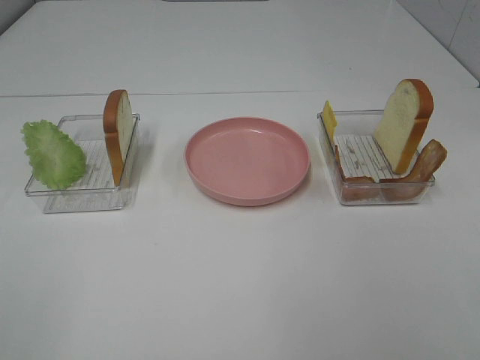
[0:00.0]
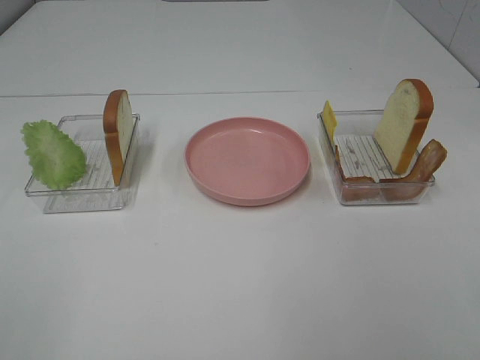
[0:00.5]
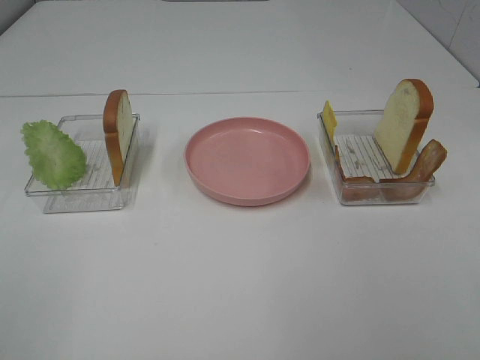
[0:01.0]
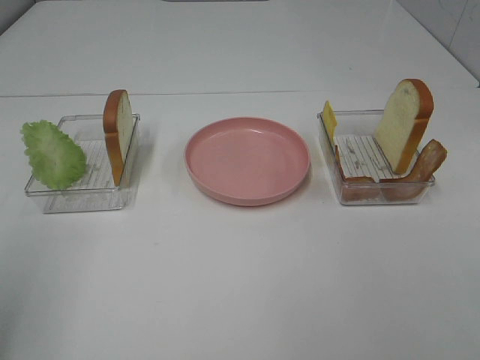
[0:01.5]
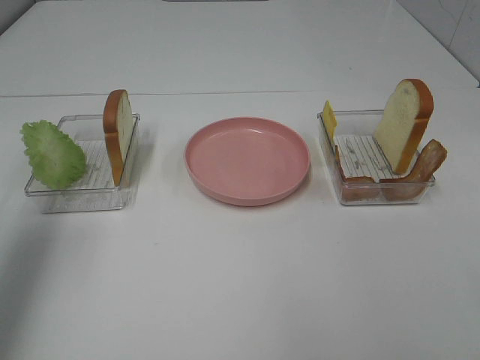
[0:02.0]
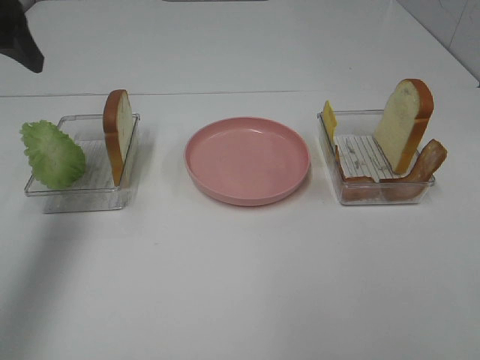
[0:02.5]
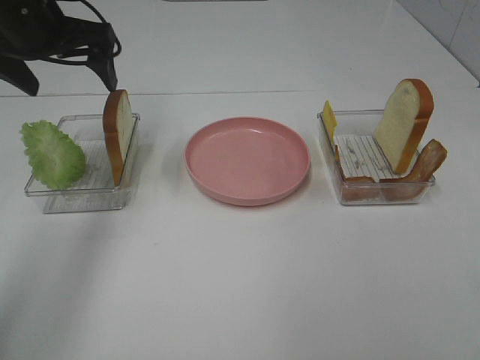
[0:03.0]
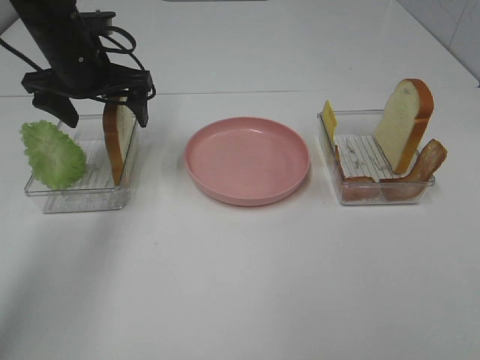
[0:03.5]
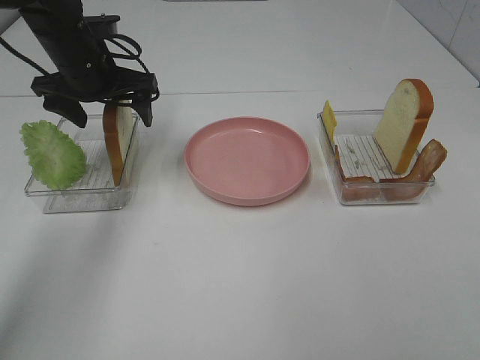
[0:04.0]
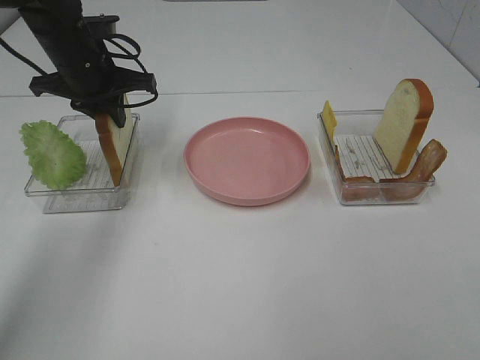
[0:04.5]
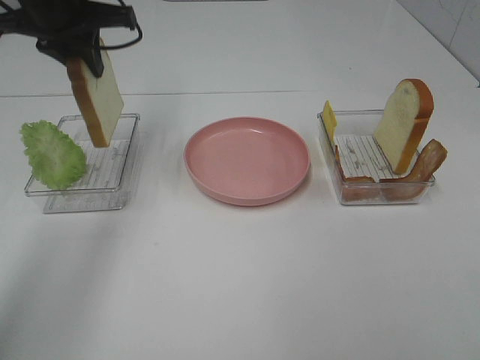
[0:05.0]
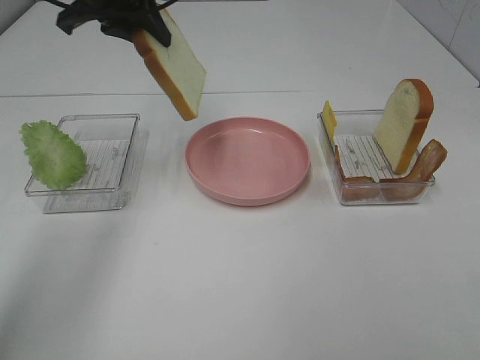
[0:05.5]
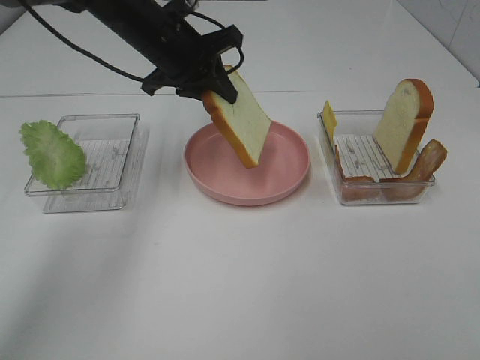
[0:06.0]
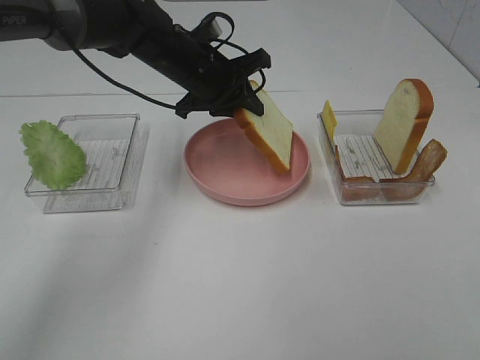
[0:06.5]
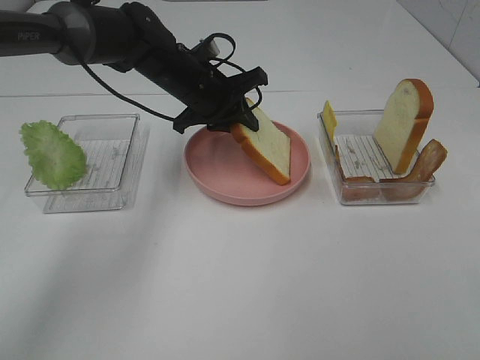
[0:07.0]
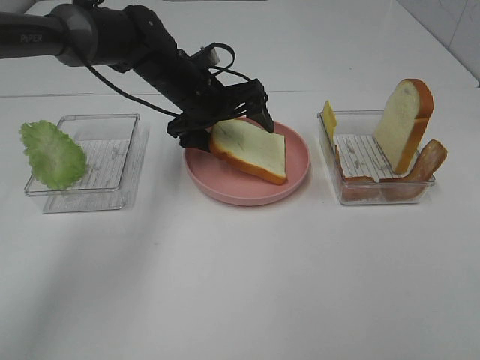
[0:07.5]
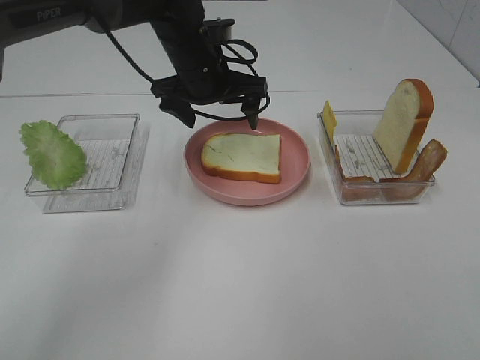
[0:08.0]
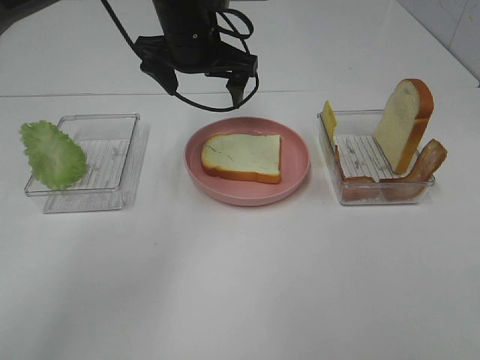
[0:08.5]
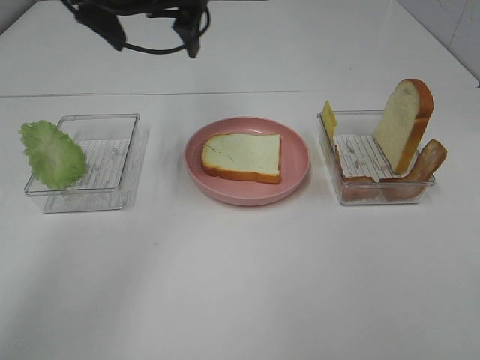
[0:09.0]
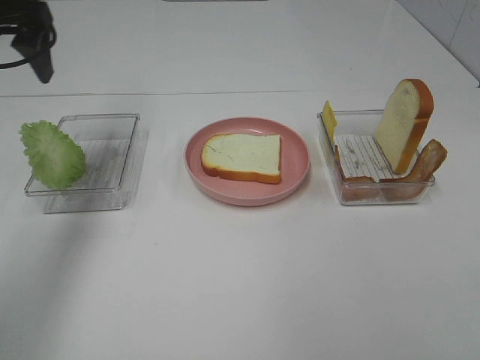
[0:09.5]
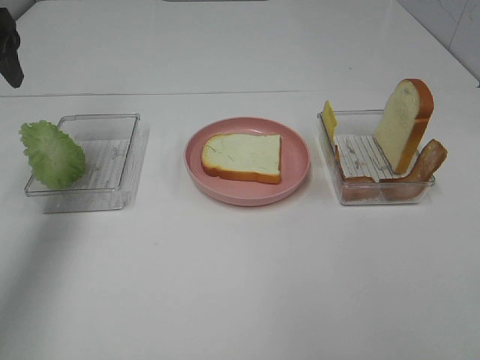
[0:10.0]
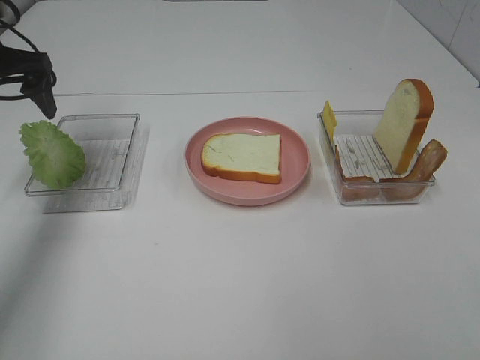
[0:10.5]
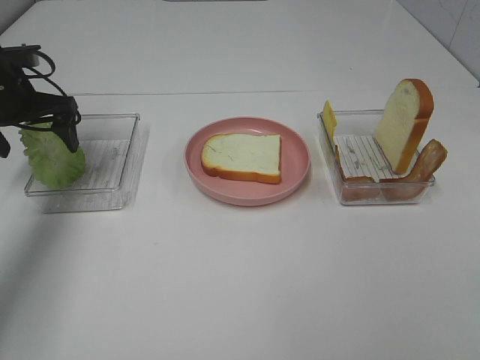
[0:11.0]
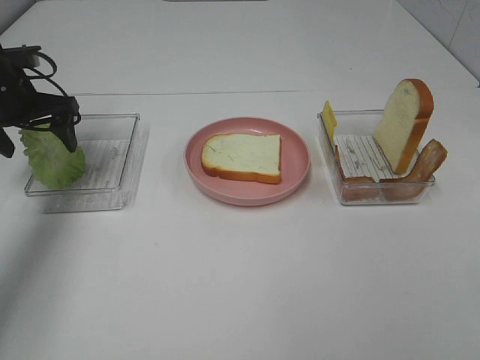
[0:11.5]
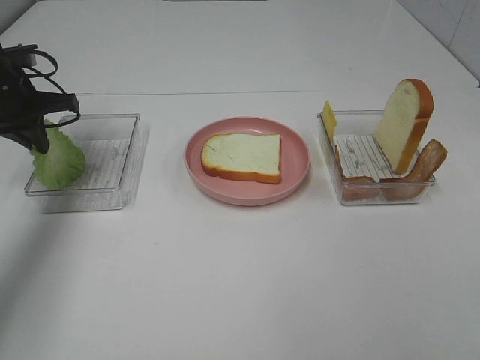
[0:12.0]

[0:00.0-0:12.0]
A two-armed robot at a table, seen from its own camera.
Task of the whole recording: Make sandwiches.
Step, 0:00.0 to 0:04.5: Left hand:grab the bread slice.
Step, 0:05.0 to 0:07.5: Left hand:place the bread slice on the plate.
0:00.0 to 0:02.0: The left gripper travels forward by roughly 25 cm.
0:02.0 to 0:04.0: The left gripper goes roughly 30 cm forward, downward and to the right.
0:04.0 to 0:06.0: The left gripper travels to the right by roughly 10 cm, goes upward and returns, roughly 10 cm each way, and closes up.
0:06.0 to 0:08.0: The left gripper ends up approximately 5 cm from where it was, and opens its fingers.
0:08.0 to 0:10.0: The left gripper shifts roughly 30 cm to the left and upward.
0:10.0 to 0:12.0: The left gripper is displaced downward and forward by some 15 cm, and closes up.

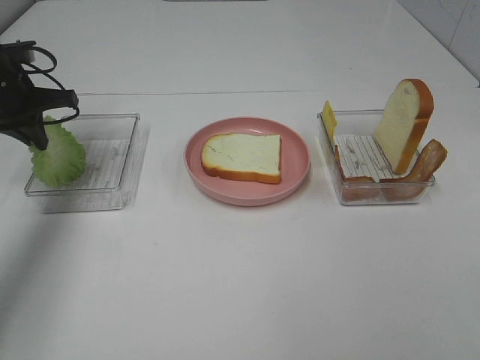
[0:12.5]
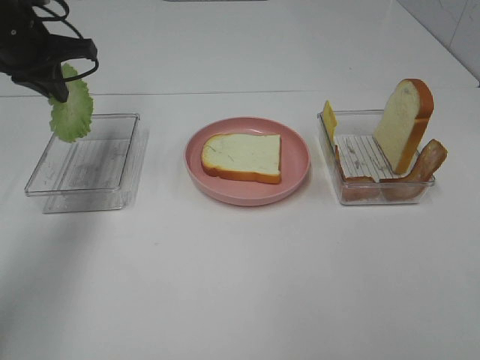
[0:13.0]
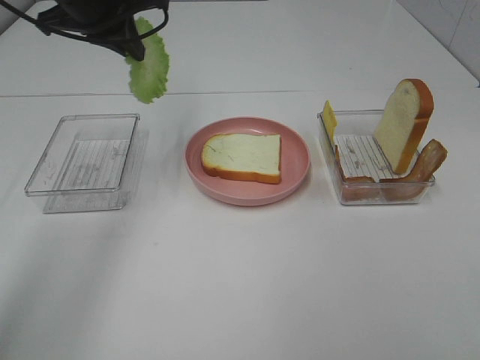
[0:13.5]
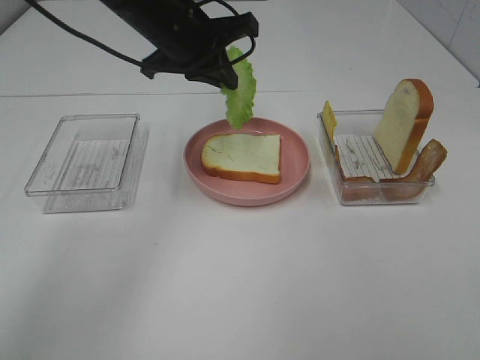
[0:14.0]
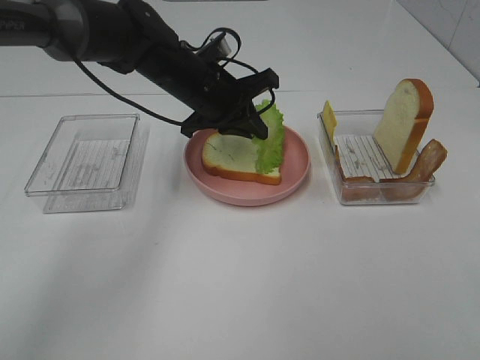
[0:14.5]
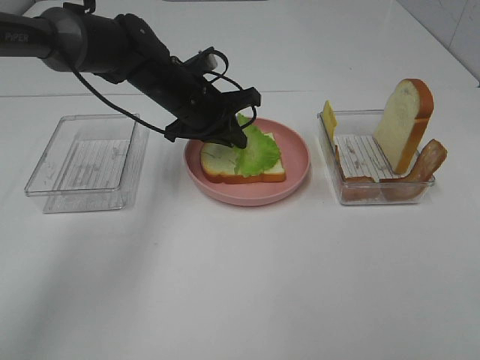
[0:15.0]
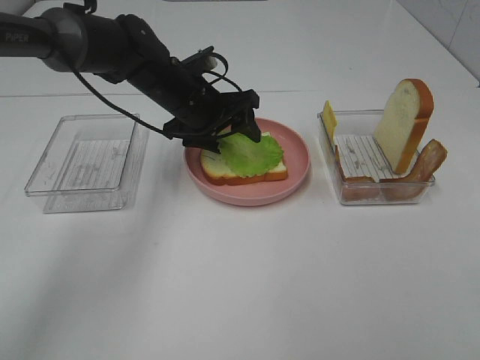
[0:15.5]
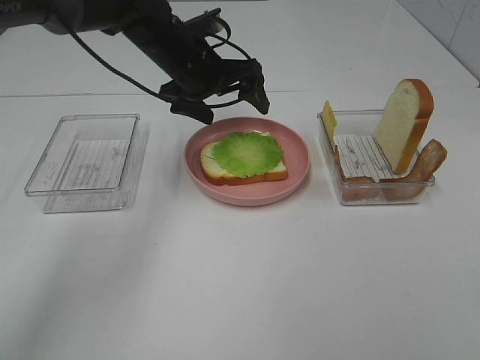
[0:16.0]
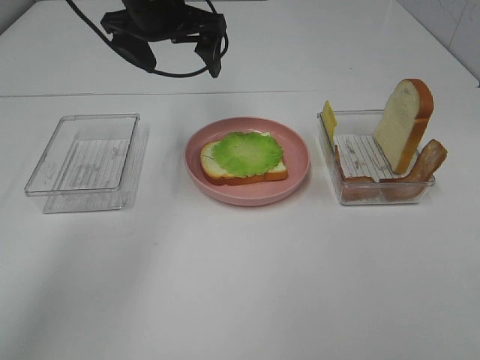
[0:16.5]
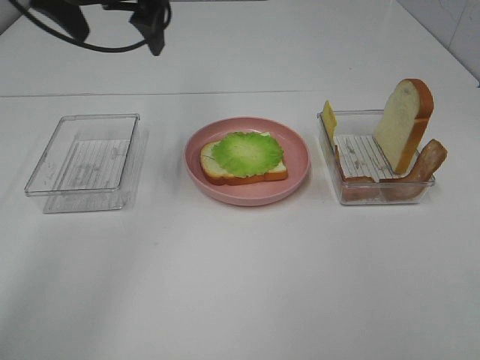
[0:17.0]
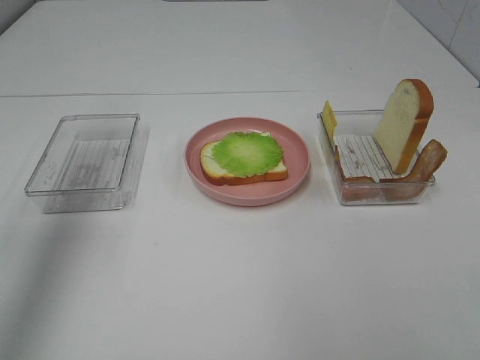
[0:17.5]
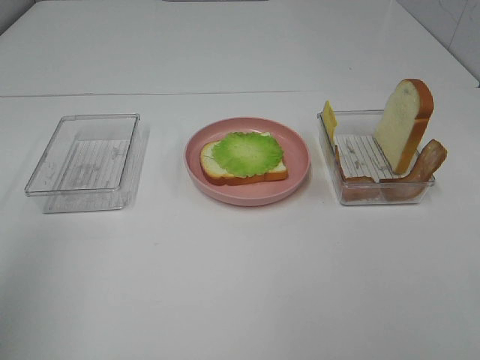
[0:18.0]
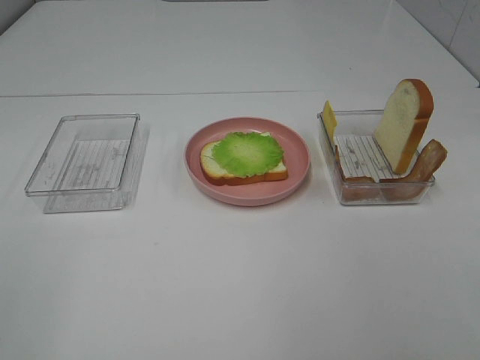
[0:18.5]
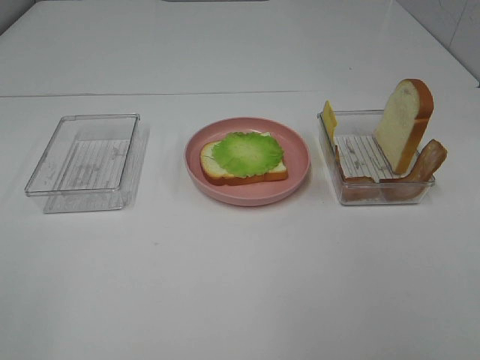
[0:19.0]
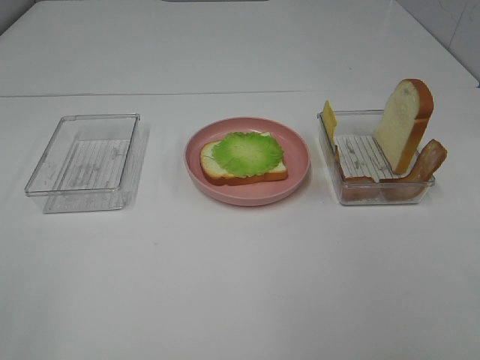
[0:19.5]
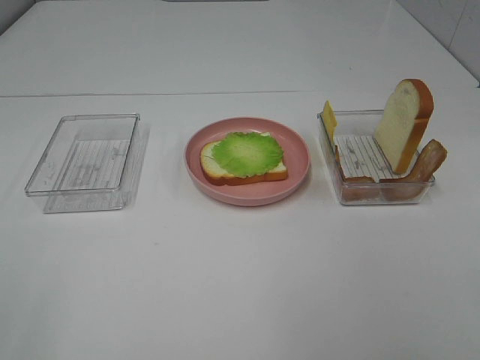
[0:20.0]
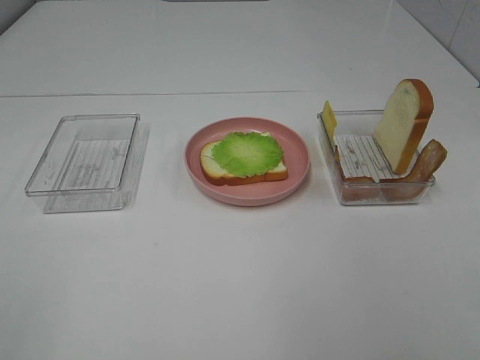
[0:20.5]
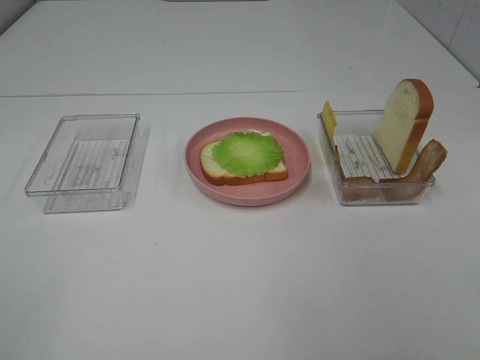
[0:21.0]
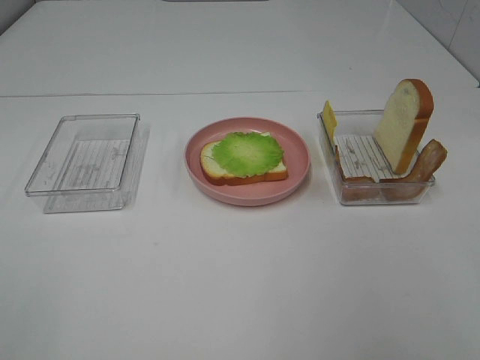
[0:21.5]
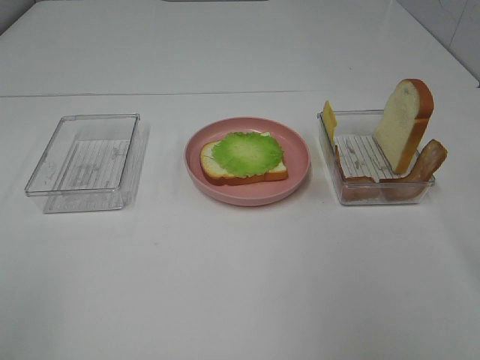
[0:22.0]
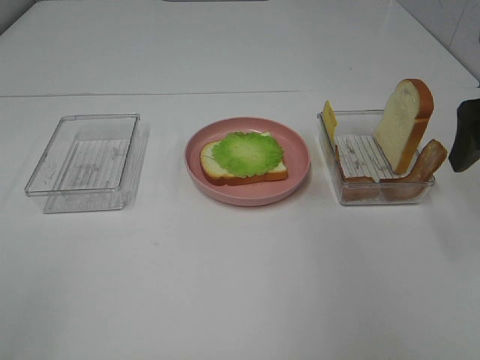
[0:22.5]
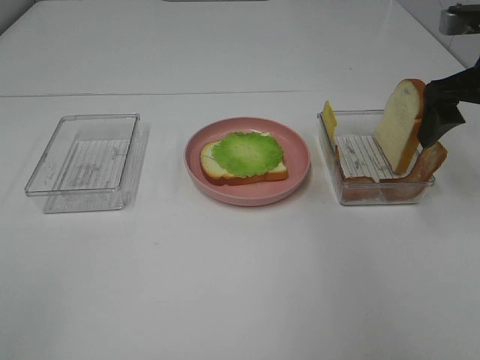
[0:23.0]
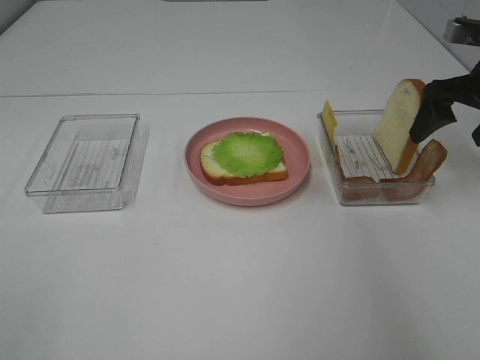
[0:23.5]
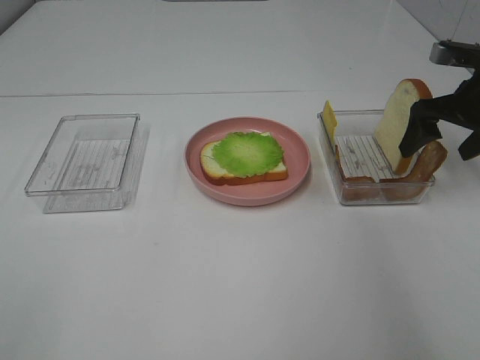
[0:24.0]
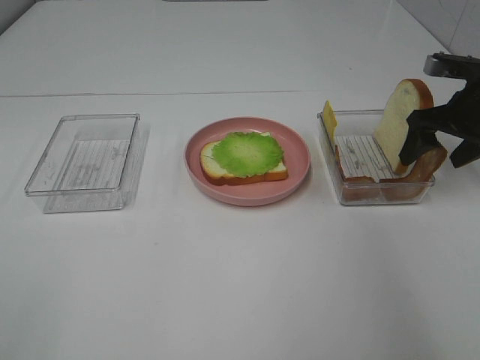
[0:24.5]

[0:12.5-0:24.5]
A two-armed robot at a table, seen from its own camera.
Task of the whole recording: Make sandwiches.
Step, 0:12.5 to 0:16.0: Left hand:place bacon on lettuce slice.
0:12.5 to 0:14.5: The left gripper moves to the right, about 25 cm.
0:14.5 to 0:16.5: The left gripper moves upward, some 10 cm, and opens its fingers.
0:16.5 to 0:18.5: The left gripper shifts approximately 50 cm backward and to the left.
0:20.5 to 0:22.5: The right gripper moves forward, approximately 30 cm.
0:22.5 to 0:24.5: The right gripper shifts some 15 cm forward and downward.

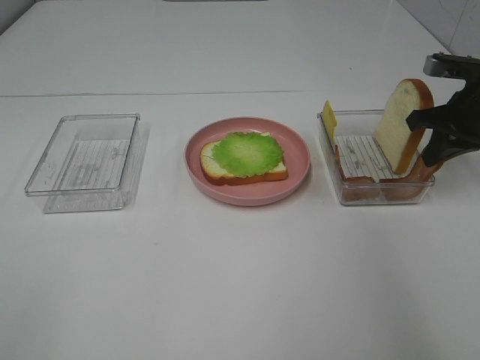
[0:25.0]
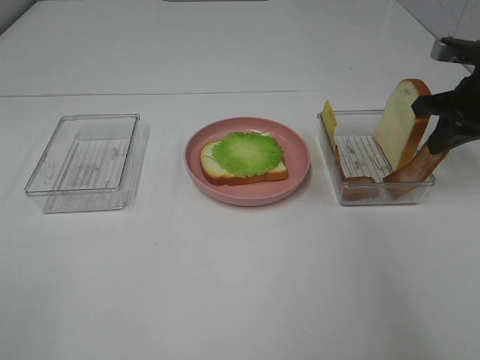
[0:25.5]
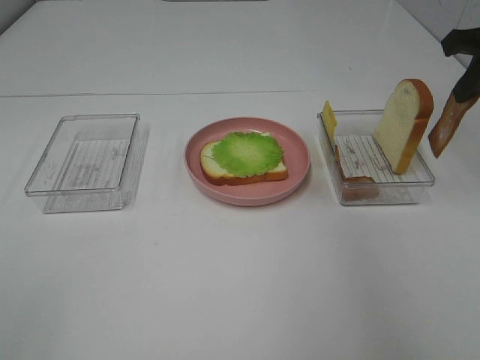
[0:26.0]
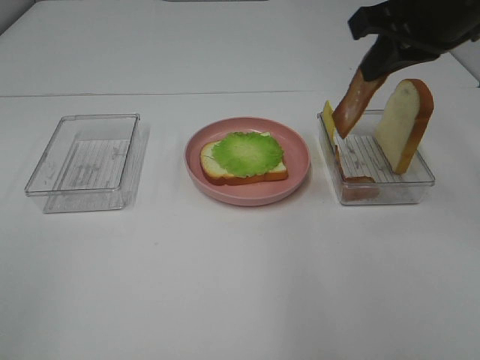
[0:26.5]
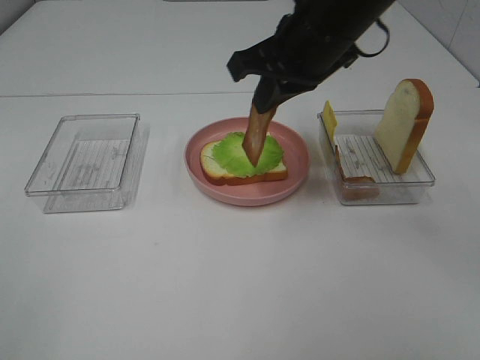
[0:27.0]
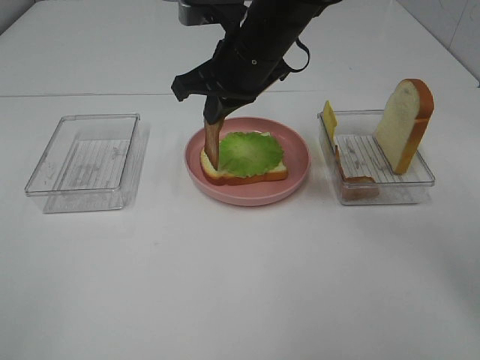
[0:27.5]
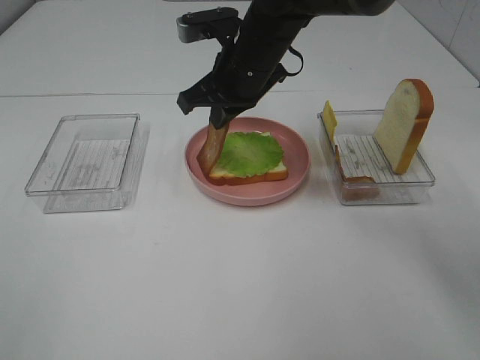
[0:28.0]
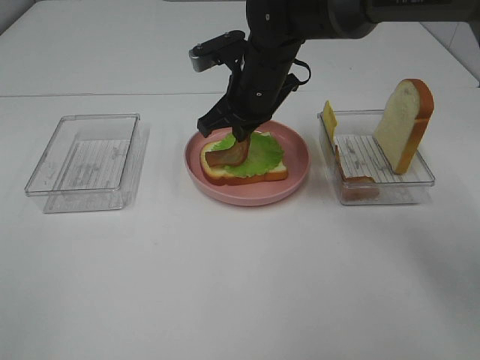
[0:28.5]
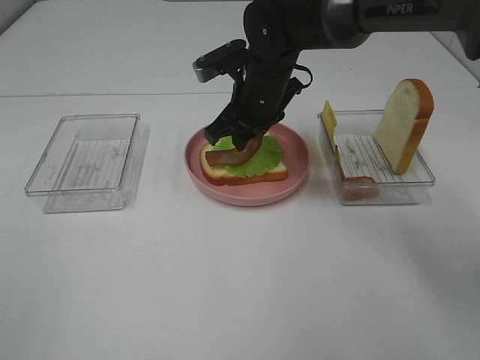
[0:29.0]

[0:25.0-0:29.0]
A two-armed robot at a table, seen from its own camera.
Task of the whole recording: Make sandwiches.
0:25.0 to 0:27.0: The right gripper goes about 25 cm to the left and upward.
0:27.0 to 0:29.0: The right gripper heads downward, forward and to the left, covering about 15 cm, and opens its fingers.
